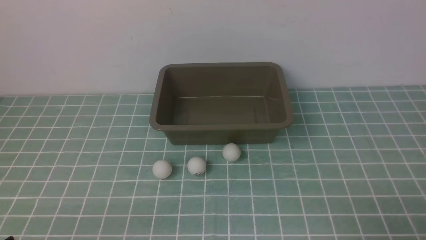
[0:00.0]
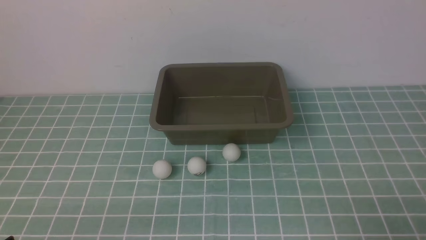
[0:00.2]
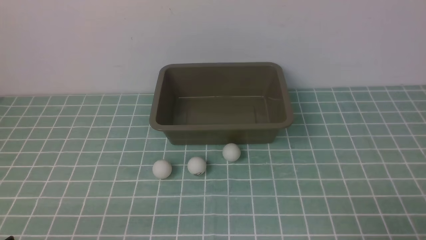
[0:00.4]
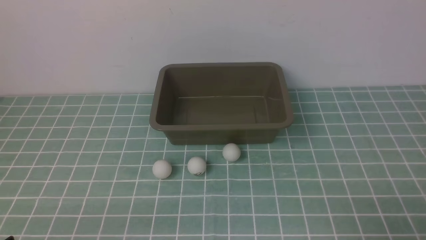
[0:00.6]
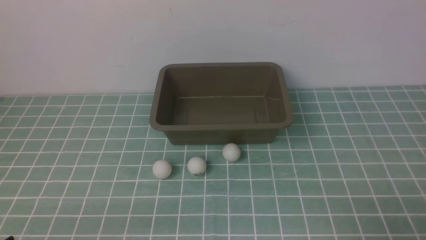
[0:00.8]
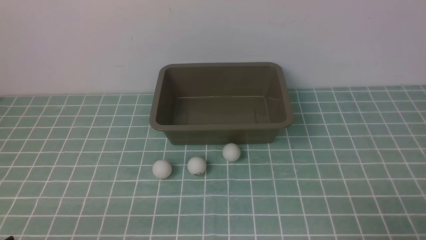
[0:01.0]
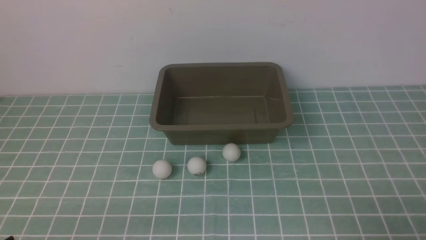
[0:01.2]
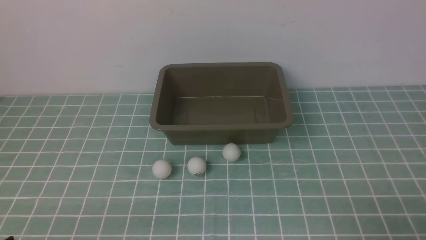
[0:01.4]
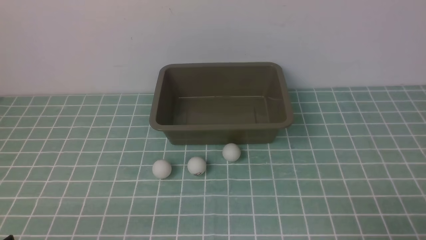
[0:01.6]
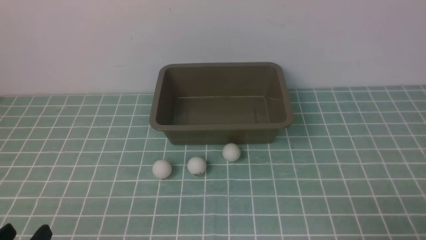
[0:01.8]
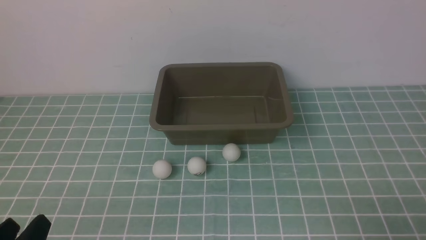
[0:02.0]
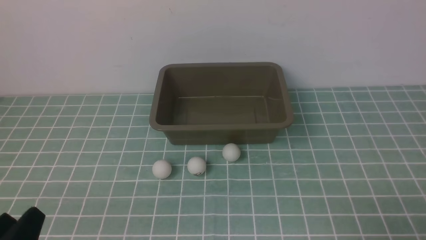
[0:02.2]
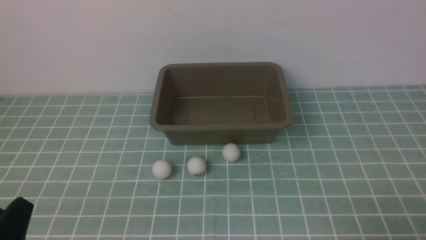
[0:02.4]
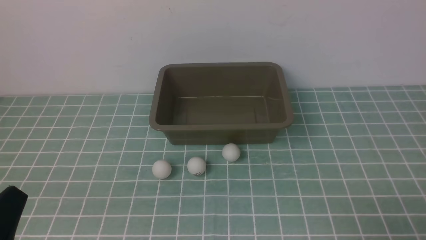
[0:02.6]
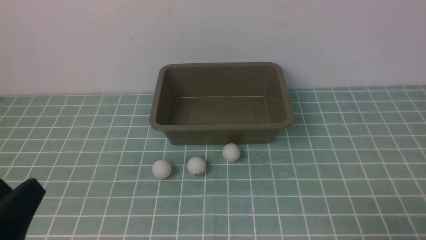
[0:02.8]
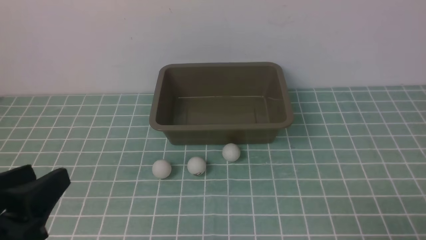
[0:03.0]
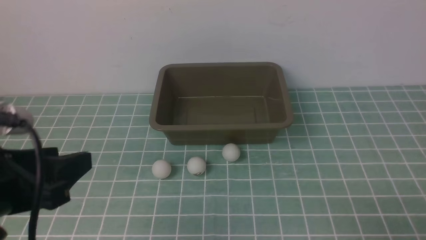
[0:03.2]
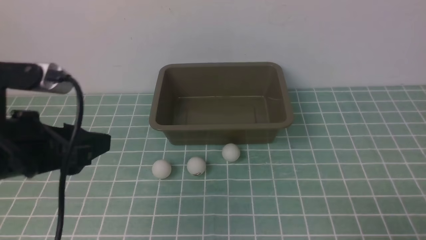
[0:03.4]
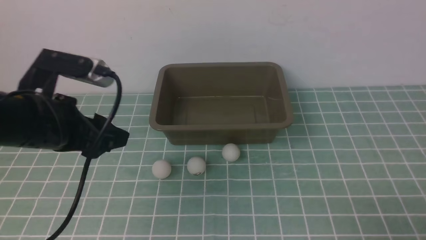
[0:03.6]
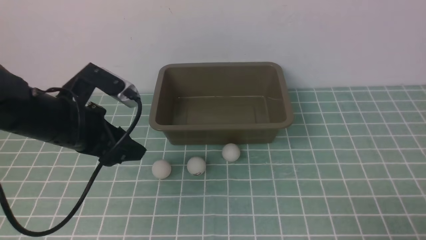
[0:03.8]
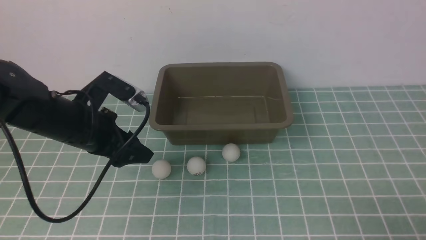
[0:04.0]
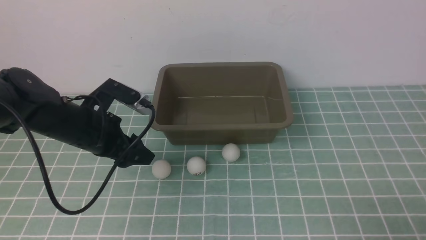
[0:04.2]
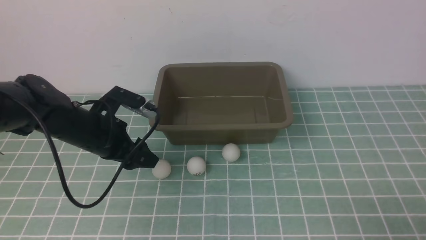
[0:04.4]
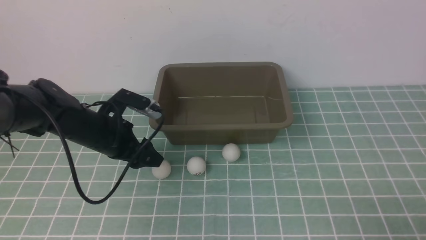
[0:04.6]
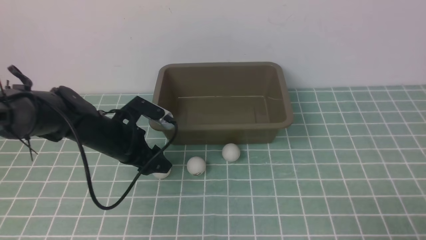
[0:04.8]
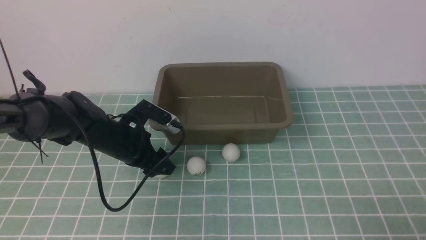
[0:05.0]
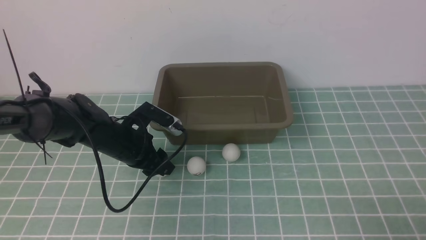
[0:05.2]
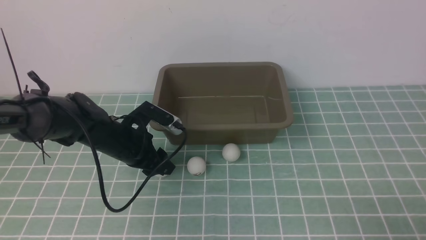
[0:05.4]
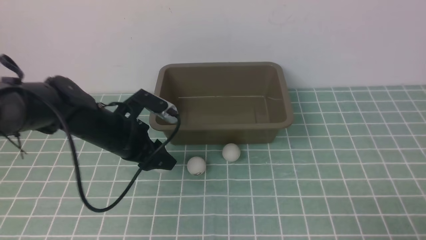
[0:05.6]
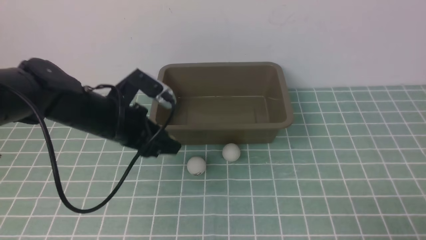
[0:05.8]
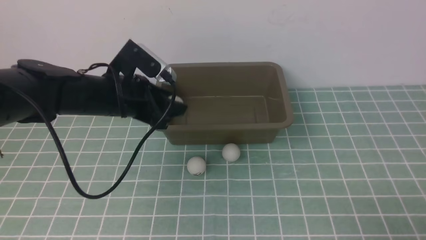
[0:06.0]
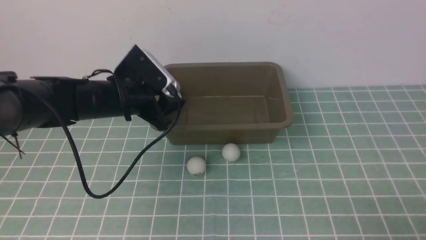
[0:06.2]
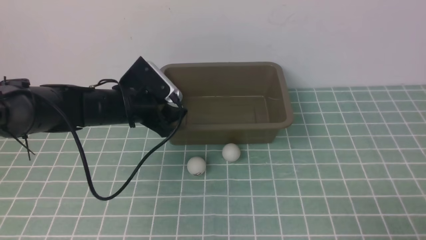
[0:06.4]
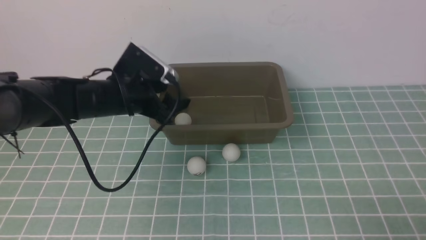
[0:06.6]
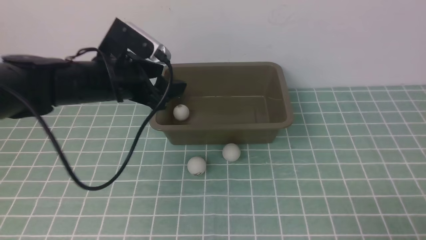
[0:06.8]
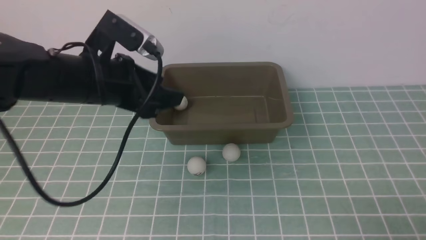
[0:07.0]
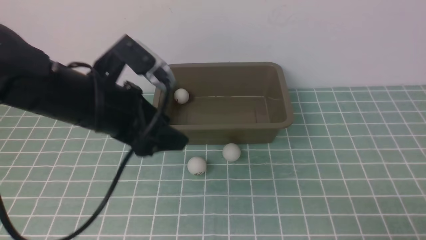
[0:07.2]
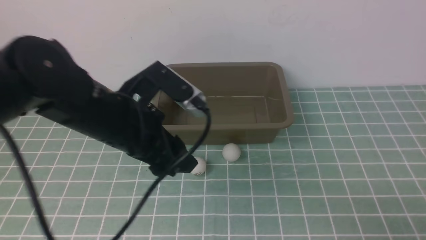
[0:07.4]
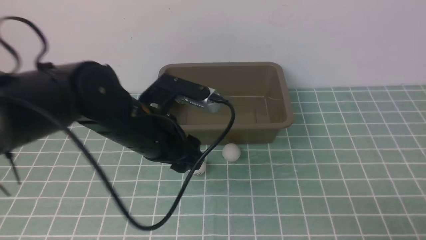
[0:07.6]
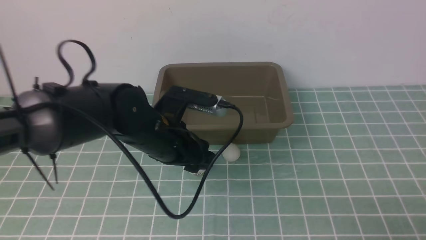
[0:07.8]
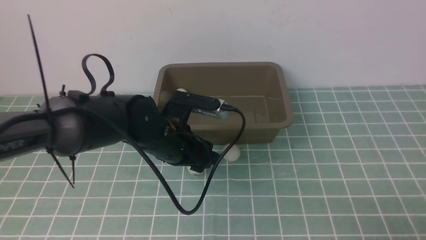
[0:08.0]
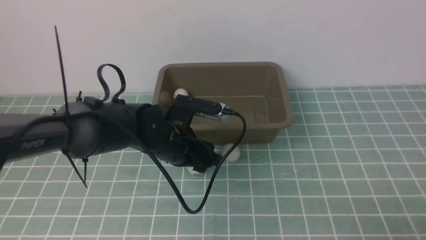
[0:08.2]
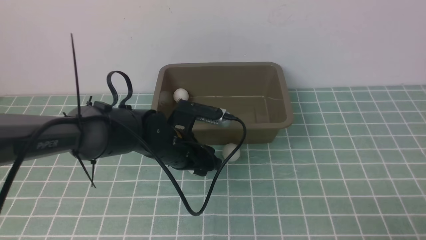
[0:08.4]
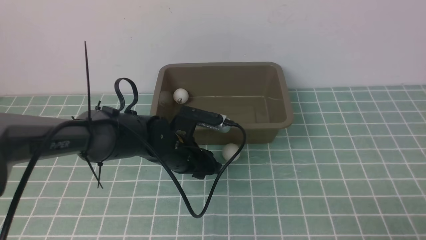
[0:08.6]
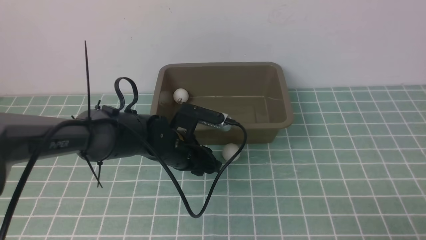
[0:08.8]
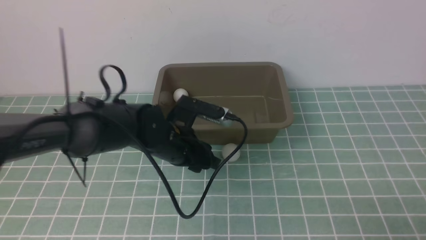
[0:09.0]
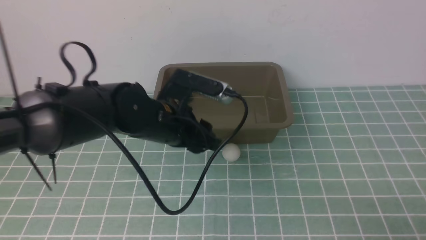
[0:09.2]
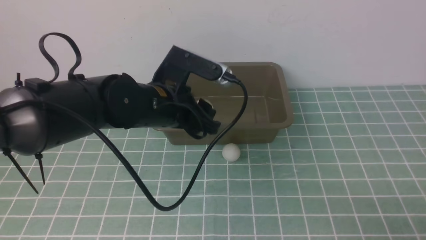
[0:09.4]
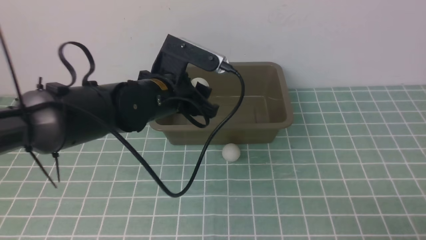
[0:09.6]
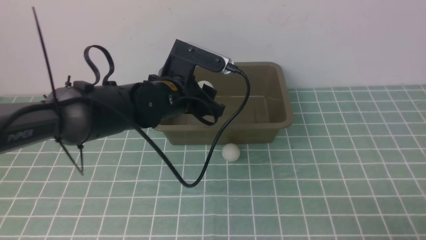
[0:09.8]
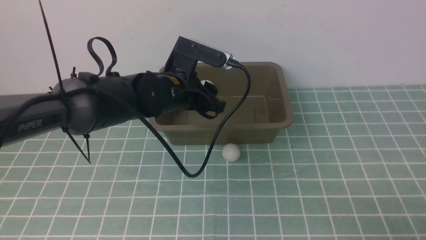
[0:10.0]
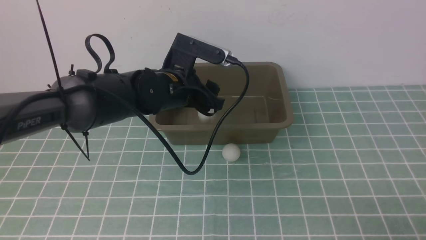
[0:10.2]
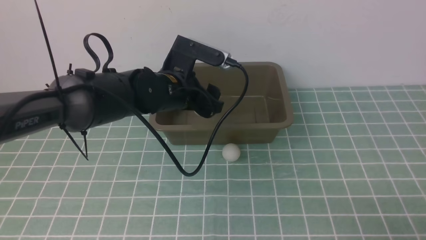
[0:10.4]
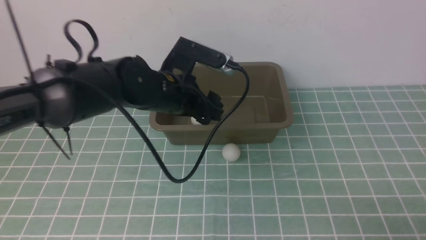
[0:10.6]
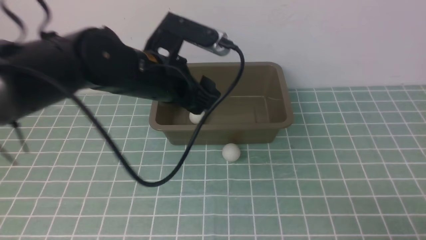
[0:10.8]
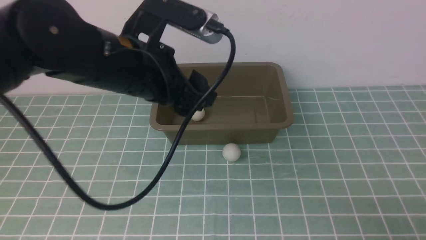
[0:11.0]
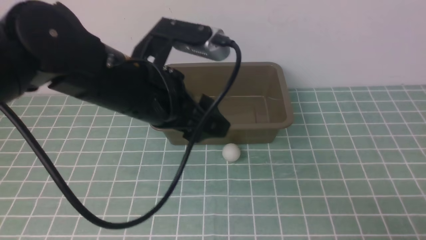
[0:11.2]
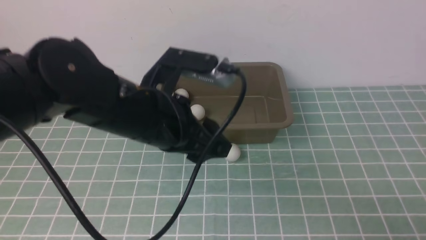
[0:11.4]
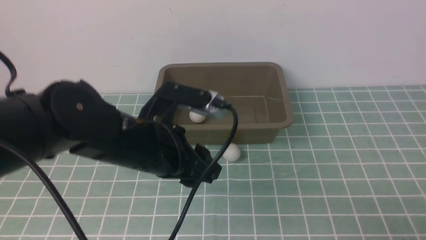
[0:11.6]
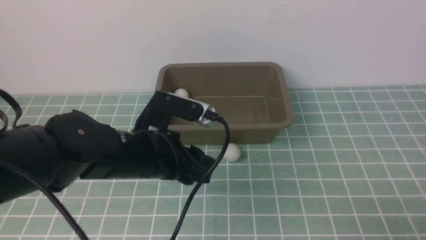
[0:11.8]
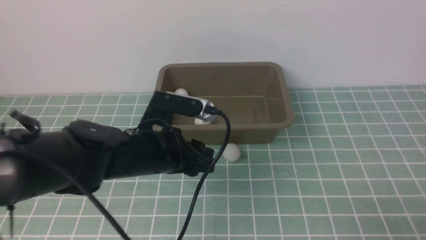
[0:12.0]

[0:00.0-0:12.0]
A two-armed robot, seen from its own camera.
Step, 0:00.0 to 0:05.6: use the left arm to clamp the table tennis ball closest to it.
Step, 0:05.8 to 0:06.8: use the left arm to put the table tennis ball into the box.
Step, 0:07.0 to 0:09.0: use the left arm to clamp the table tennis ball closest to it.
Step, 0:09.2 to 0:10.4: use the left arm to put the table tennis ball into the box.
0:01.6 to 0:03.0: The left gripper heads upward and forward, covering approximately 15 cm.
0:03.0 to 0:04.4: The left gripper heads forward and downward, covering approximately 25 cm.
0:04.4 to 0:06.0: The left gripper shifts roughly 5 cm upward.
0:06.0 to 0:07.6: The left gripper travels backward and to the right by about 10 cm.
0:07.6 to 0:09.0: The left gripper shifts about 5 cm downward.
0:09.0 to 0:10.4: The left gripper travels upward by some 5 cm, and opens up.
0:10.4 to 0:12.0: The left gripper travels backward and downward by approximately 10 cm, and closes its fingers.

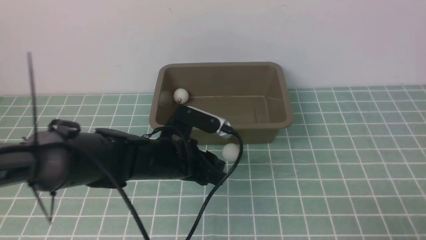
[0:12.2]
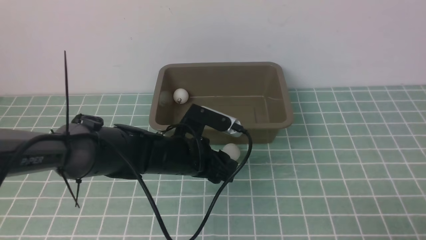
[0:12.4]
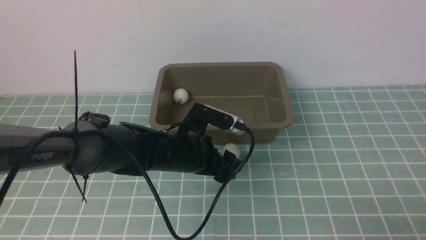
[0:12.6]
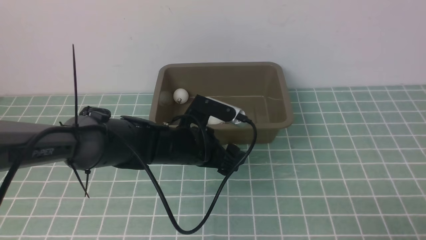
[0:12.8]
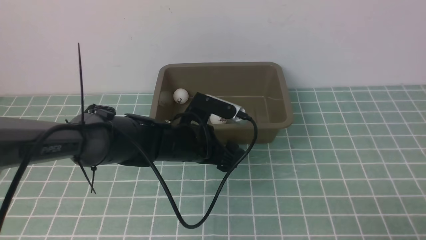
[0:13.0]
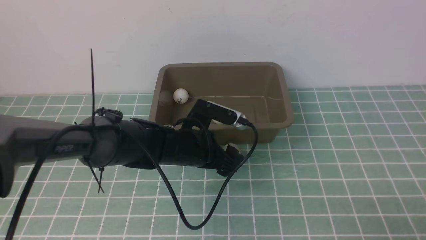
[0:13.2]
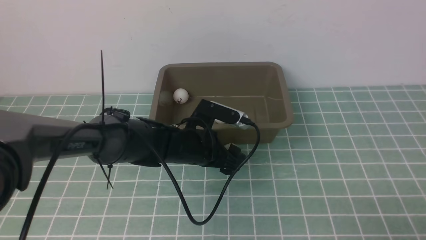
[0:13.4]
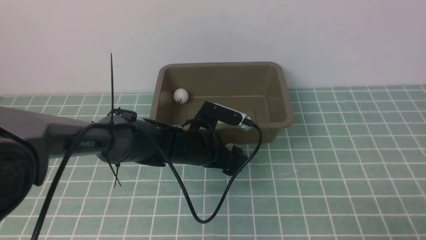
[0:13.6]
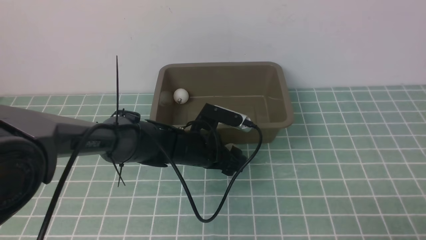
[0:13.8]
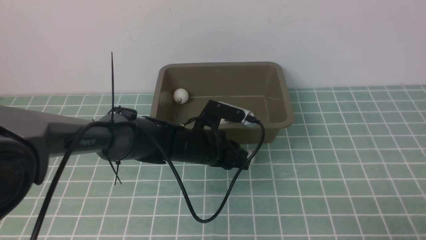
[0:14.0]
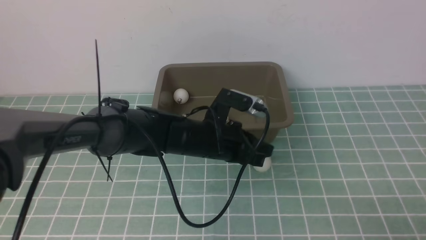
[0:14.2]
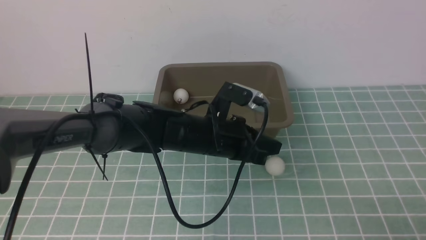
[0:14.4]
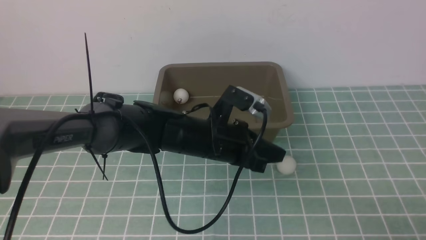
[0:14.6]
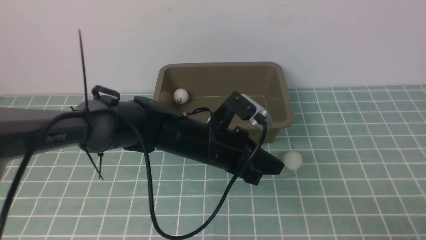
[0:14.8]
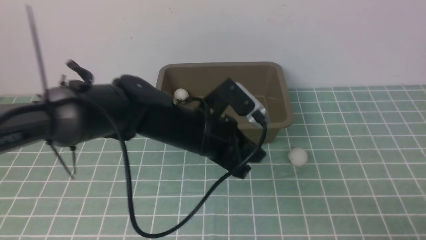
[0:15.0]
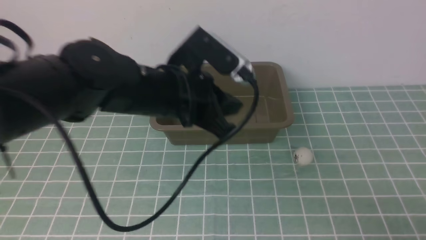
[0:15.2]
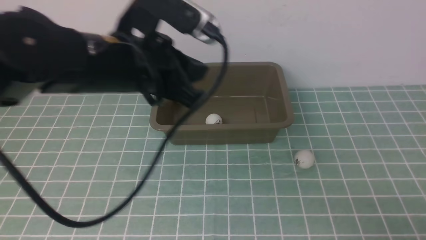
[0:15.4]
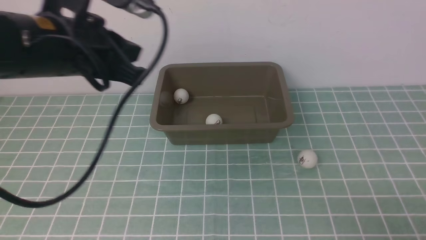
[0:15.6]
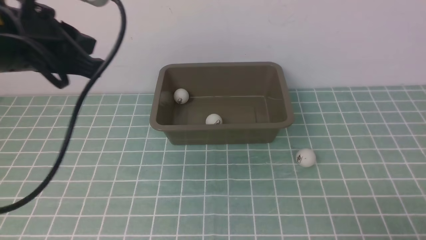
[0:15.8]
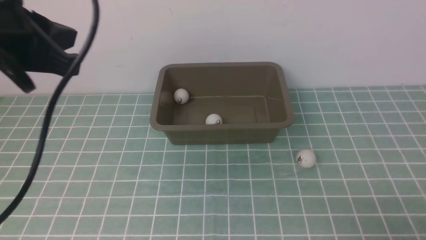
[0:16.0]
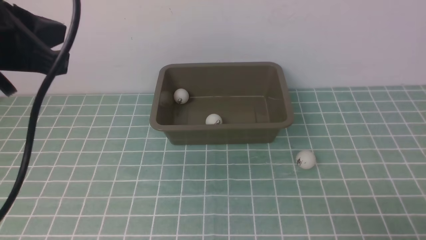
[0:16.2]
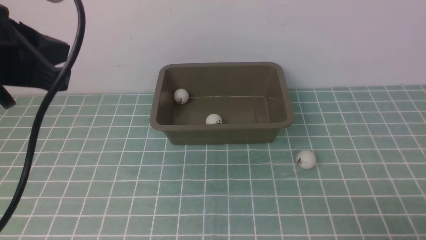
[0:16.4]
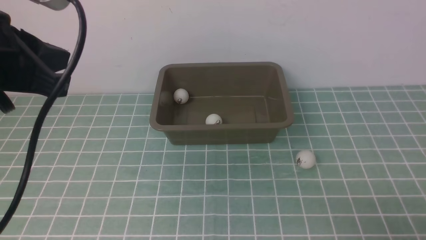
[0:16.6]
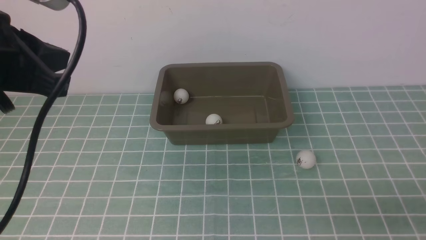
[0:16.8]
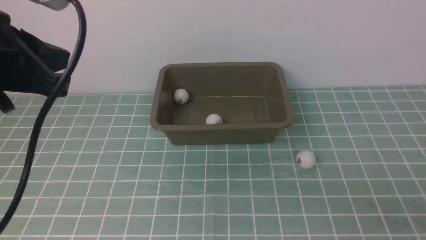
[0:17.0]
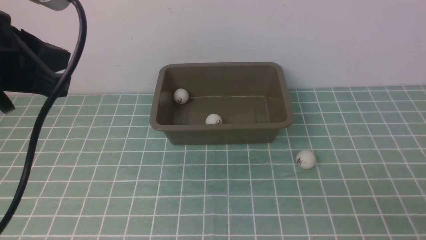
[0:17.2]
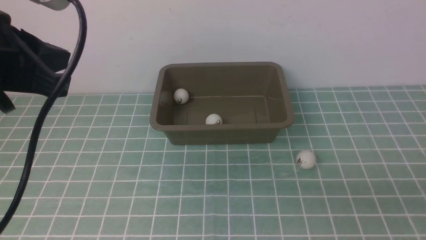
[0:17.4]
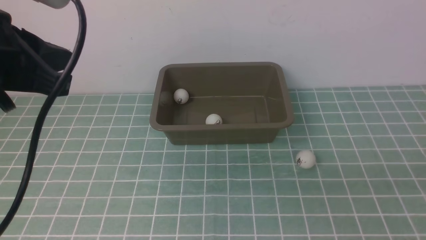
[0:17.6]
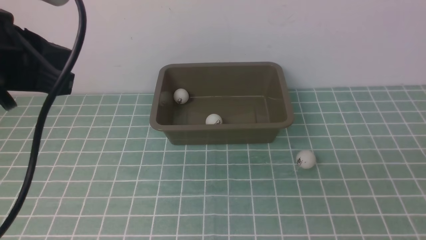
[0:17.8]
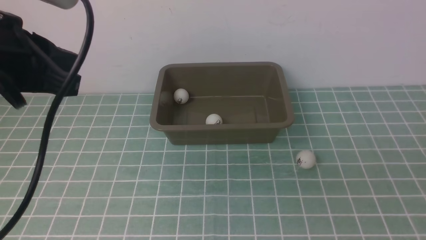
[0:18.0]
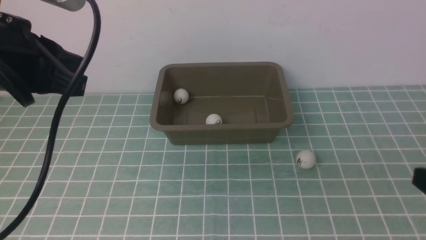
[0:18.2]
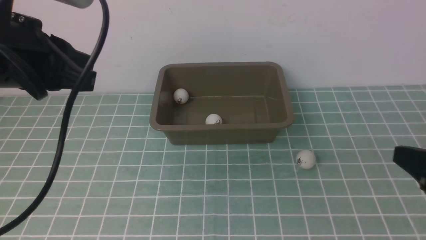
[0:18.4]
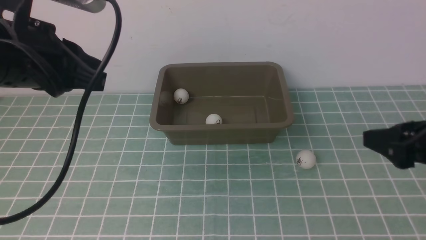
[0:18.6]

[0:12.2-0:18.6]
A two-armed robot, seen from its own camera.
0:12.2 to 0:13.8: The left gripper is displaced forward and downward by some 10 cm, and opens, then closes again.
0:13.8 to 0:15.4: The left gripper goes some 20 cm upward, and closes up.
0:15.4 to 0:17.0: The left gripper is displaced to the left, backward and upward by approximately 15 cm.
0:17.0 to 0:18.6: The left gripper shifts by about 5 cm. Meanwhile the right gripper is displaced forward and upward by approximately 20 cm, and opens.
